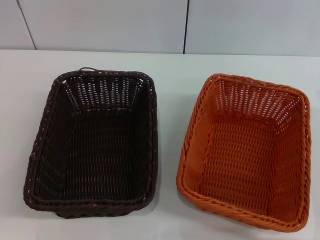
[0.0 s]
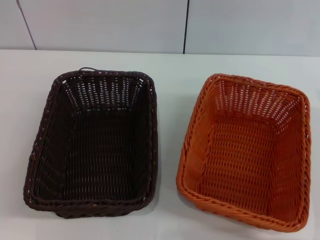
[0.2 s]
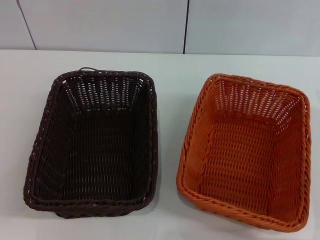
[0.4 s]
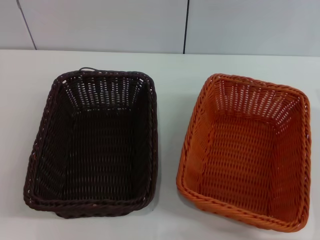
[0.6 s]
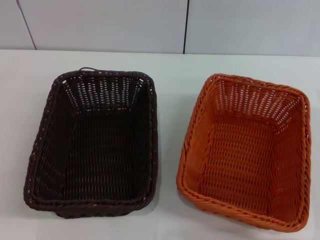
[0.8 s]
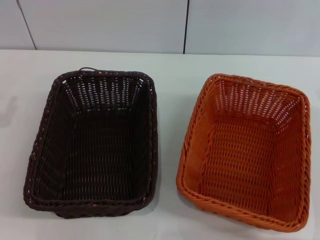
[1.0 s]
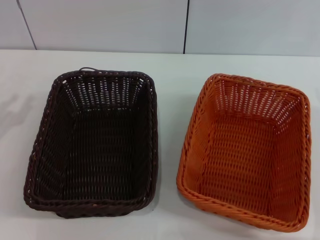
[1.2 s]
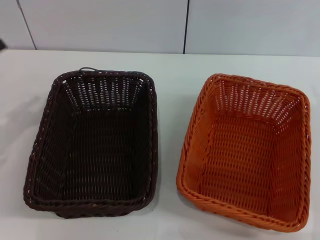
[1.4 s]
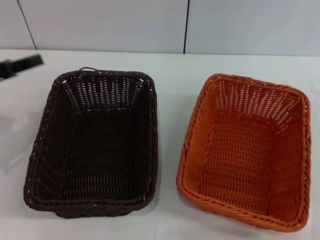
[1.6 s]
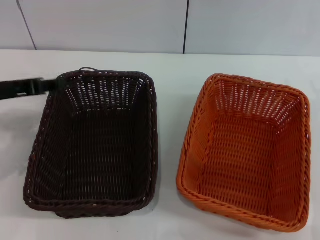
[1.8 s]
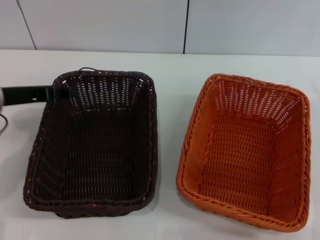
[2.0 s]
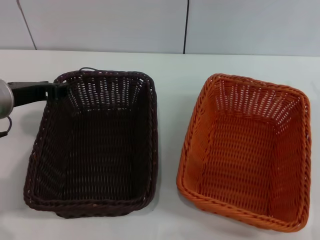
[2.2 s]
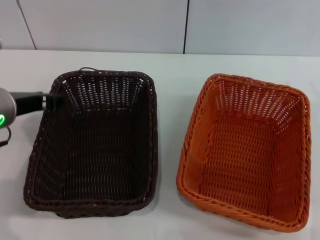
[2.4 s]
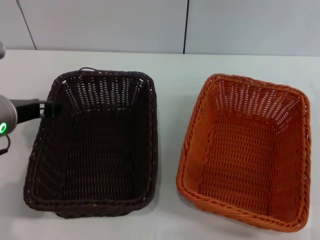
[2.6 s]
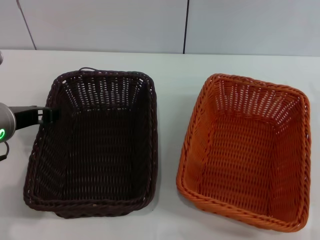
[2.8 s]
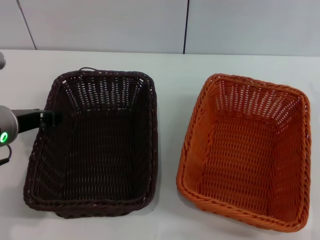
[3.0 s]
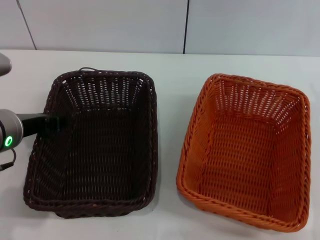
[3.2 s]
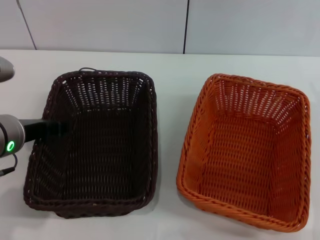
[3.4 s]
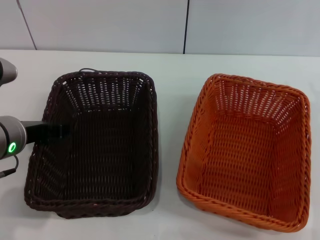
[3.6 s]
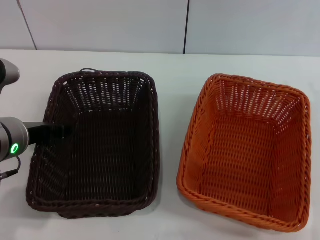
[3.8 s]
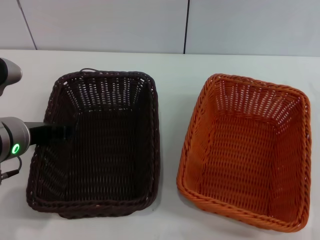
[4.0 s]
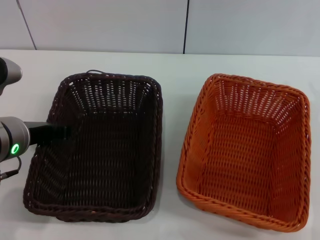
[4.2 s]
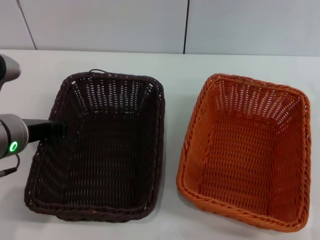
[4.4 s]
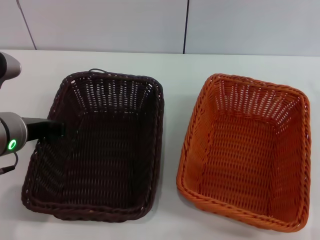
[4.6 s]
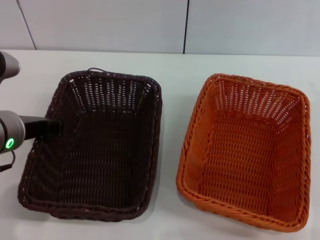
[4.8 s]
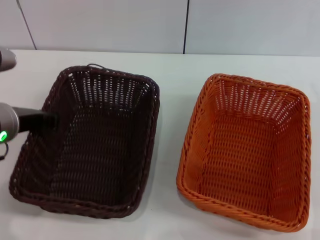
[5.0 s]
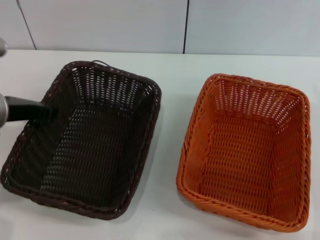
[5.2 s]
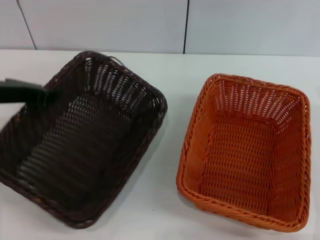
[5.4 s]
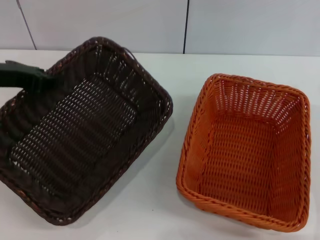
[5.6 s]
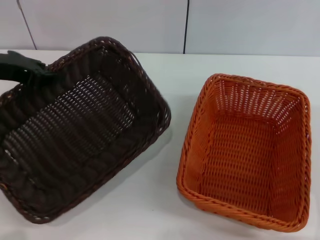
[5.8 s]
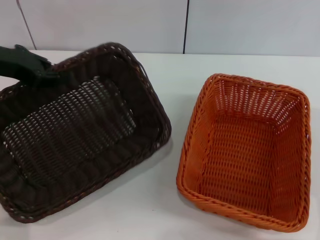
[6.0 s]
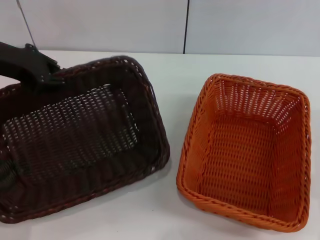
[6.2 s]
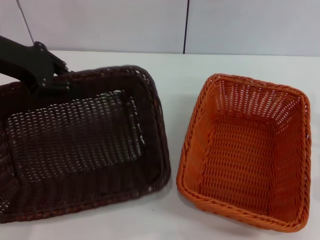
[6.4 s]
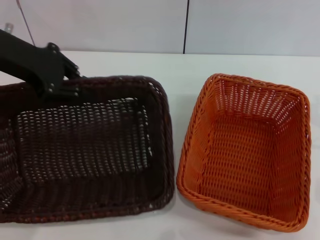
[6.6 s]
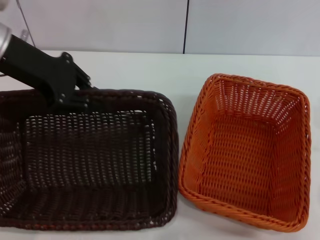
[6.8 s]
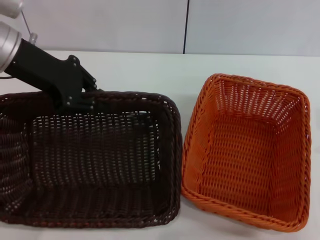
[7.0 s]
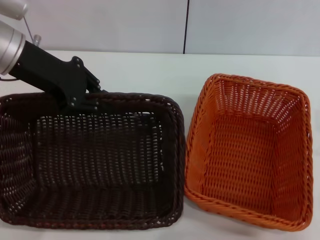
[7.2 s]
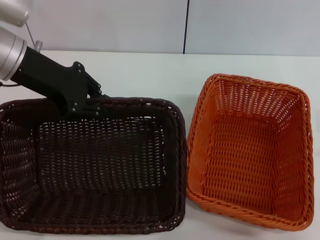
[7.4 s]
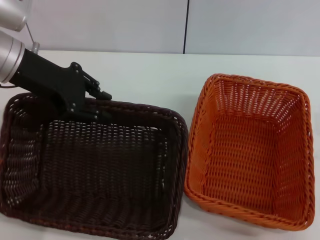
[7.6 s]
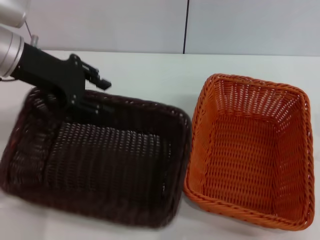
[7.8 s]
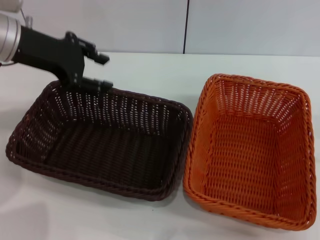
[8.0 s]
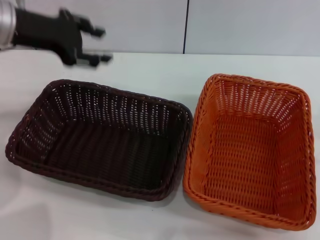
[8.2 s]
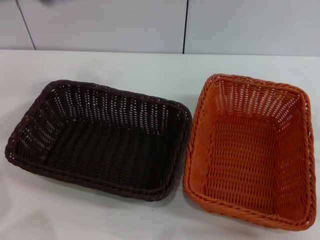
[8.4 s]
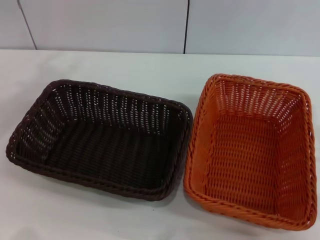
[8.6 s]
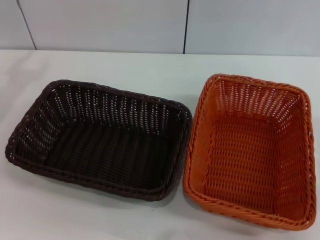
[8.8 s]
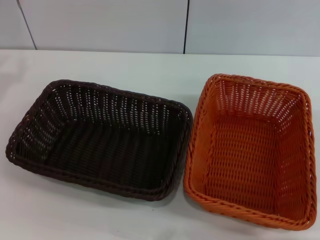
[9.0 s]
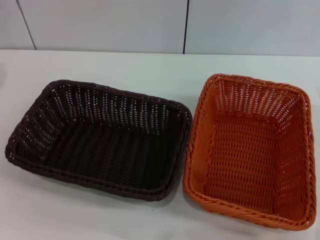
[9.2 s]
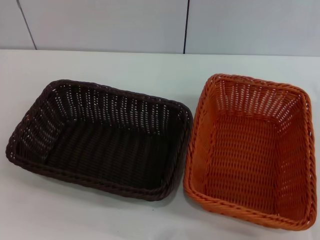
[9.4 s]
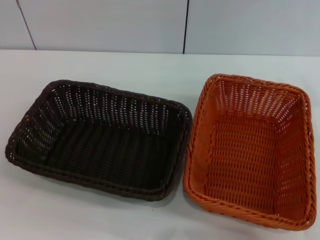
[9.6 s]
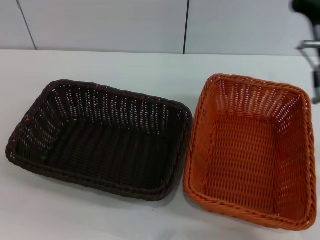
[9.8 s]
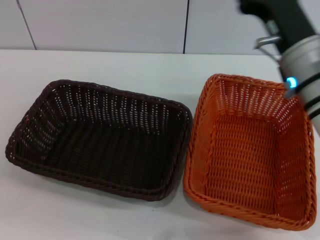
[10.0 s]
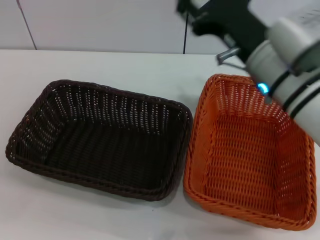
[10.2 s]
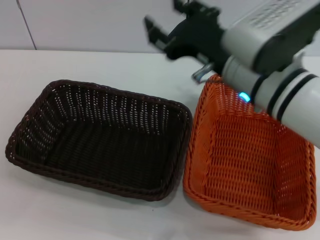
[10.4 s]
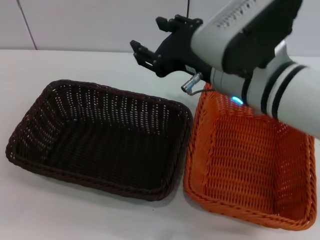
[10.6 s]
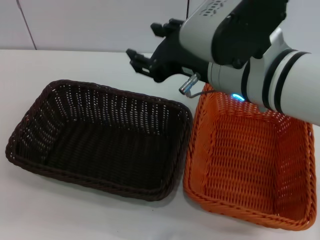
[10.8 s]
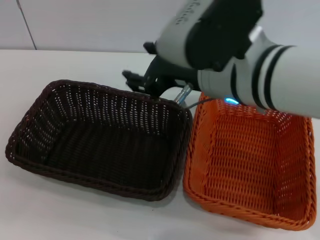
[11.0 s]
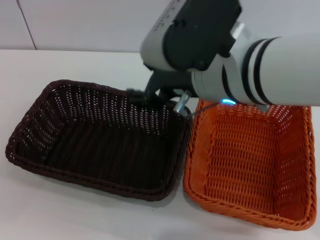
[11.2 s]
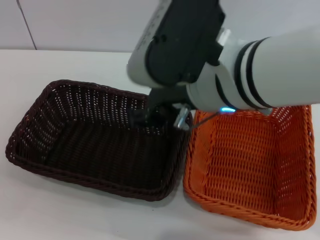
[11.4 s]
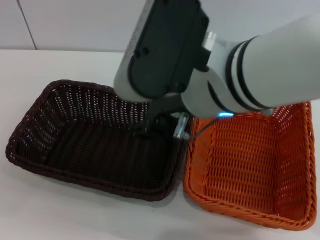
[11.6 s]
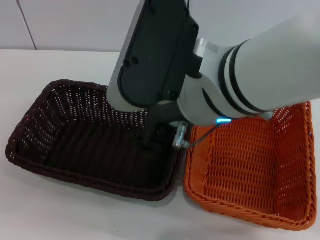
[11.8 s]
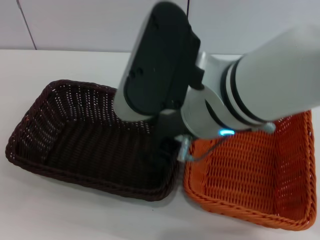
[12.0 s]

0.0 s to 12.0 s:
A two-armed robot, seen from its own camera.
Step, 0.0 to 5.6 s: Pick up the dark basket with the left gripper.
Step, 5.8 to 8.0 s: Place the dark basket in the center of view with the left gripper.
0.0 to 1.6 s: The left gripper shifts approximately 15 cm to the right, upward and forward.
1.6 to 3.0 s: The left gripper goes some 10 cm to the right.
3.0 to 4.4 s: The left gripper closes.
4.4 to 6.0 s: The left gripper heads forward, to the left and upward, covering about 15 cm.
6.0 to 7.6 s: The left gripper is displaced to the right by some 5 cm.
7.6 to 9.0 s: The left gripper goes some 15 cm to the left, and opens up.
9.0 to 10.4 s: The right gripper travels to the left and upward by some 20 cm. Meanwhile the left gripper heads backward, downward and to the left, covering about 15 cm.
10.4 to 12.0 s: The right gripper moves to the left, roughly 5 cm.

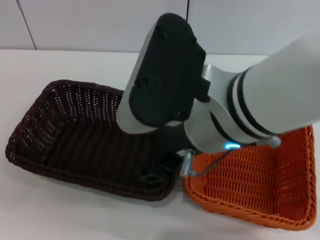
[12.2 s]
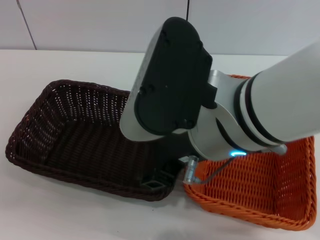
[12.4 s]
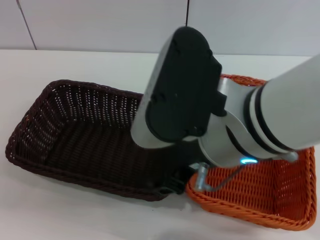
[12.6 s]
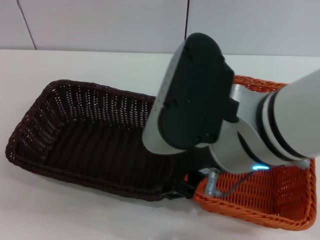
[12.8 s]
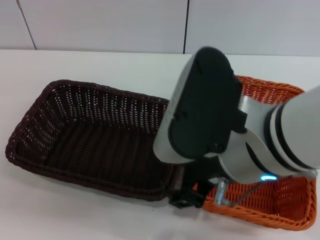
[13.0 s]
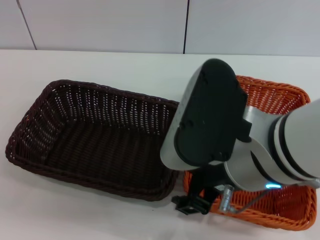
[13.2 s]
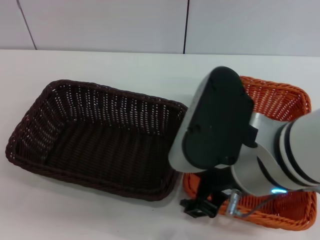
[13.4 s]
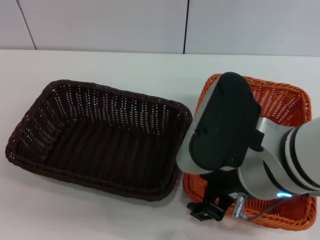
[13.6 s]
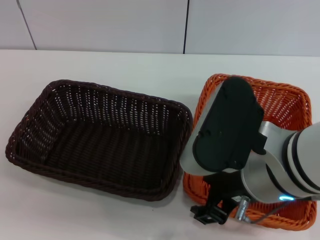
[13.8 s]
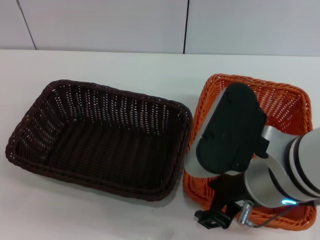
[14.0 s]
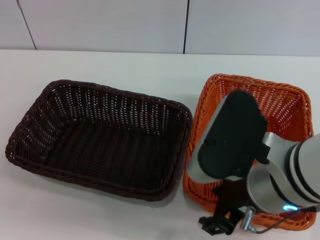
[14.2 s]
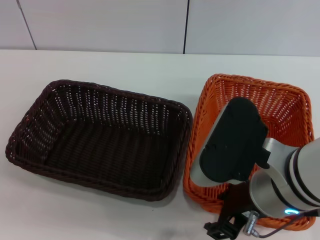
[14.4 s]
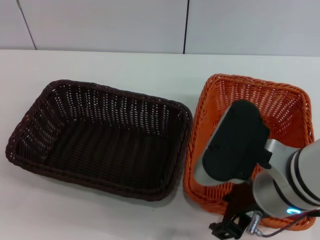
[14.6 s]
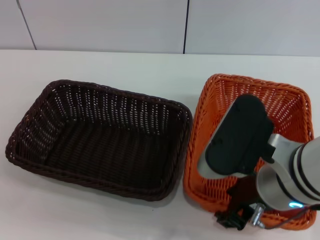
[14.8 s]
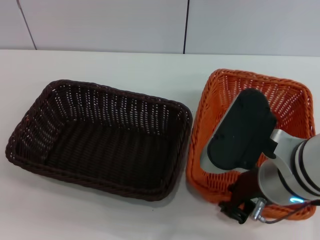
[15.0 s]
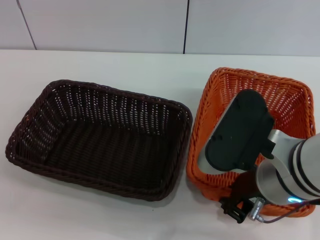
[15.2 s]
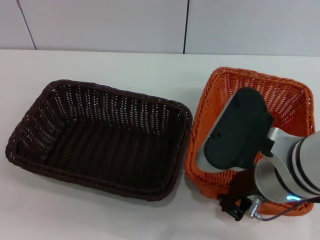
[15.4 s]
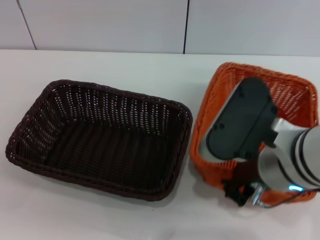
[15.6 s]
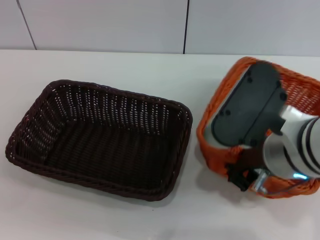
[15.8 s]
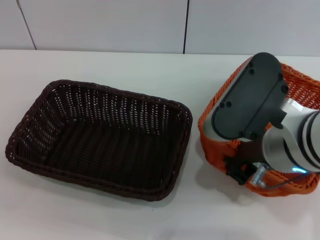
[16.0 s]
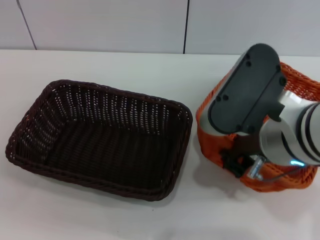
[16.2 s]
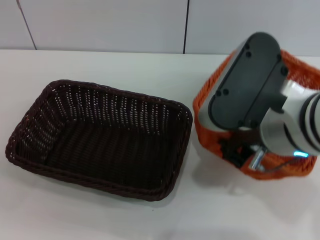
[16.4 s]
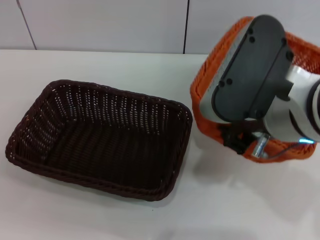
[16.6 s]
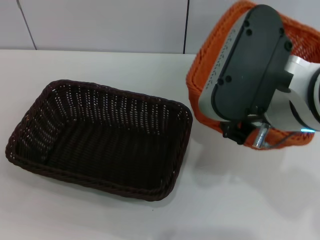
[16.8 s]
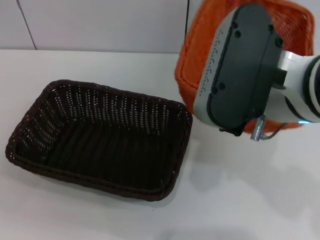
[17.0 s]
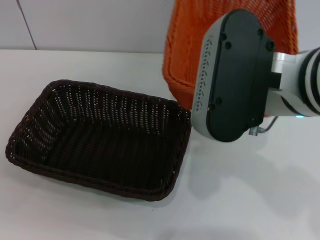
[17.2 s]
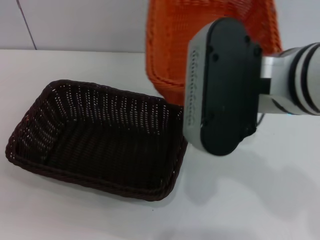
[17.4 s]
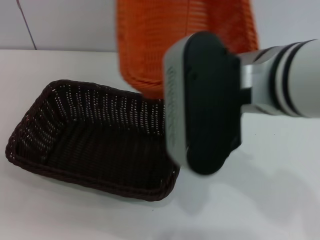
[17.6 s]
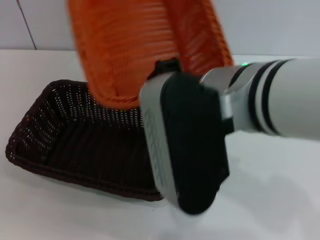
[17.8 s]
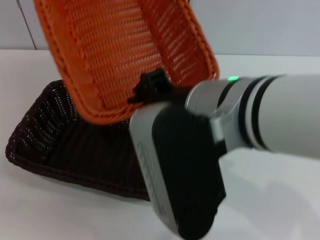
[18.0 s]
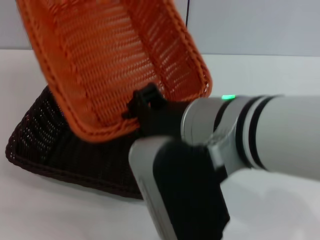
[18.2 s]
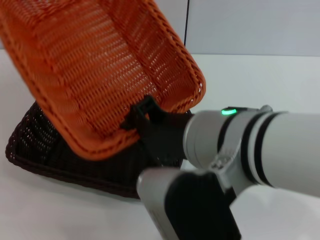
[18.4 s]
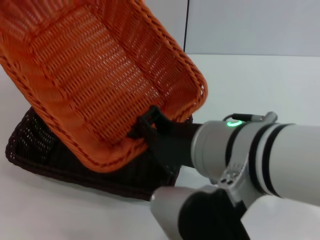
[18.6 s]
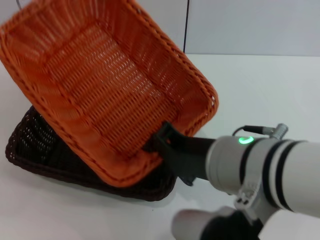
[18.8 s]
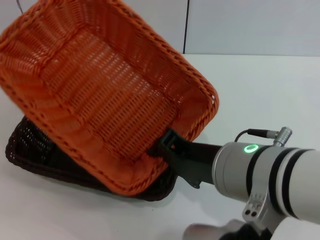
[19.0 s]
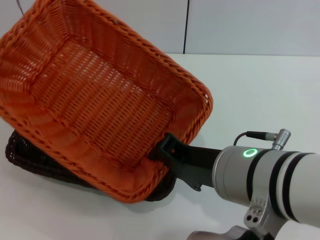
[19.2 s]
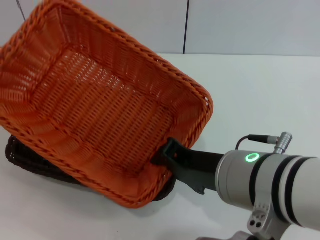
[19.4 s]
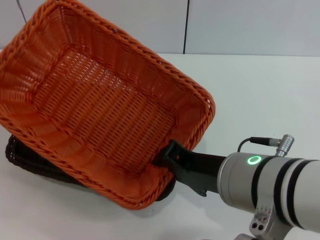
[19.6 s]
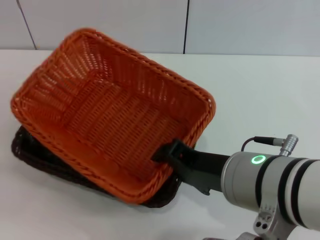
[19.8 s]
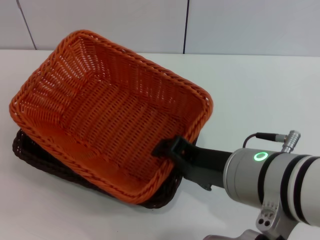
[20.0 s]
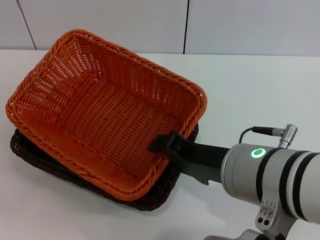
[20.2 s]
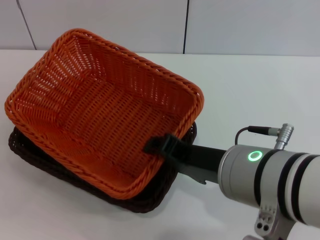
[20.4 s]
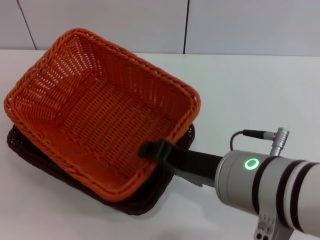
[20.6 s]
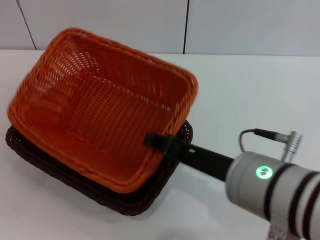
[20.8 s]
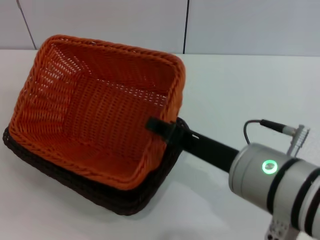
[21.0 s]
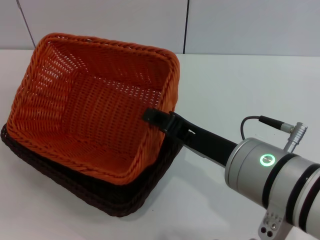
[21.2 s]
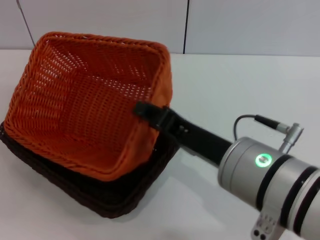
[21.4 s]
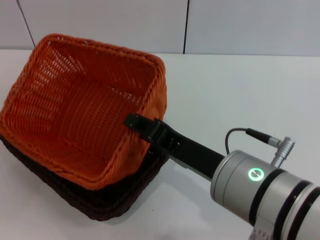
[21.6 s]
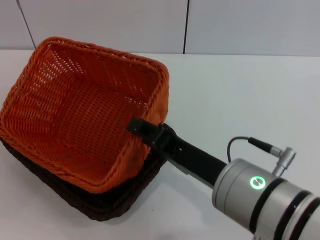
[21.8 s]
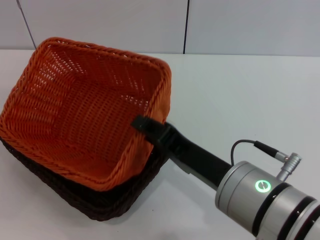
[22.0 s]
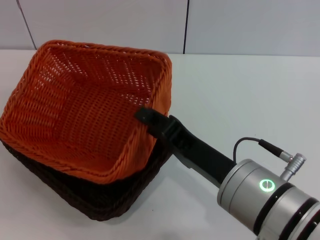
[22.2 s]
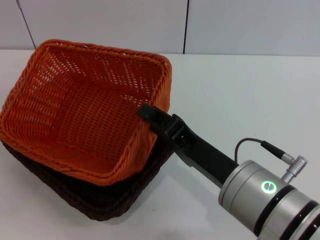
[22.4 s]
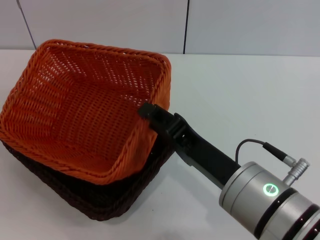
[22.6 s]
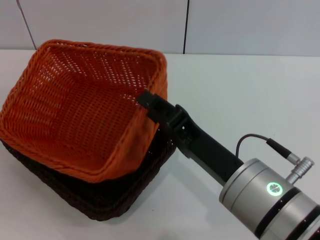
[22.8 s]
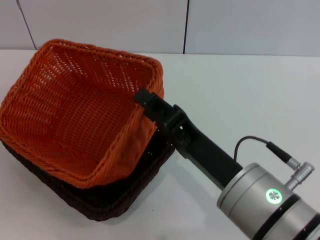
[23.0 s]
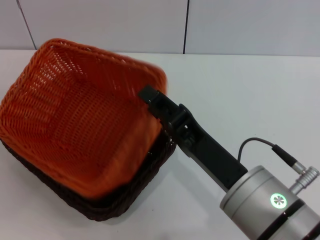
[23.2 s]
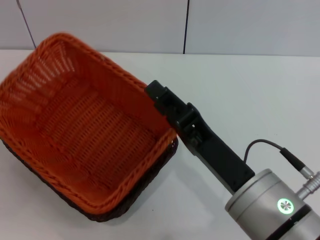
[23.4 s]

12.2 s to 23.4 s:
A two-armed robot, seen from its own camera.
Step, 12.2 to 16.4 s: Pick up the light basket with the right gripper.
12.2 to 13.8 s: The right gripper heads to the right, covering roughly 5 cm.
13.8 to 15.4 s: The right gripper closes up.
15.4 to 17.0 s: The right gripper moves upward, roughly 10 cm.
17.0 to 18.6 s: The right gripper changes place by about 10 cm.
18.6 to 20.2 s: The right gripper opens up.
